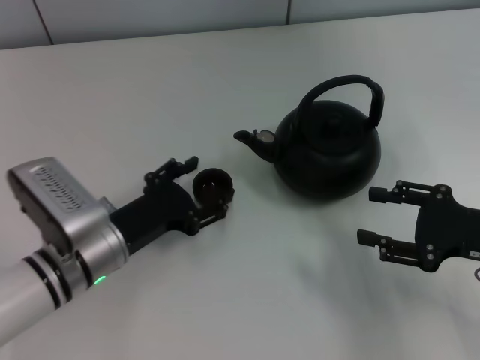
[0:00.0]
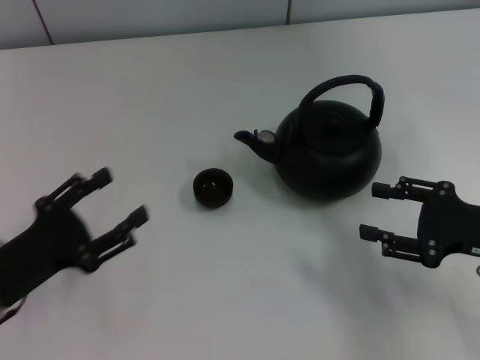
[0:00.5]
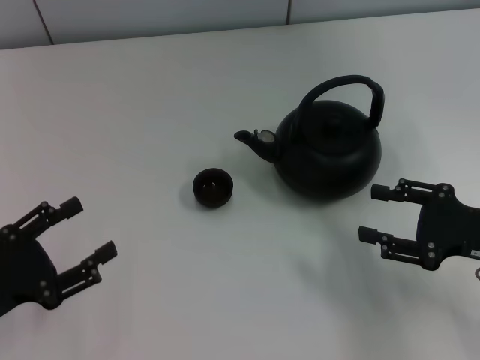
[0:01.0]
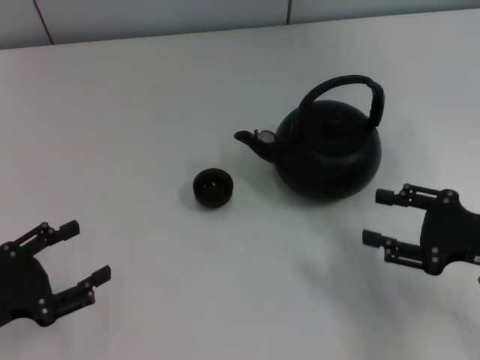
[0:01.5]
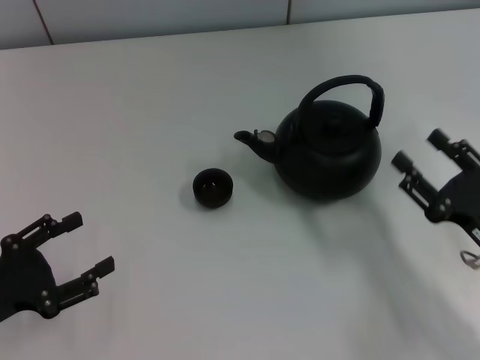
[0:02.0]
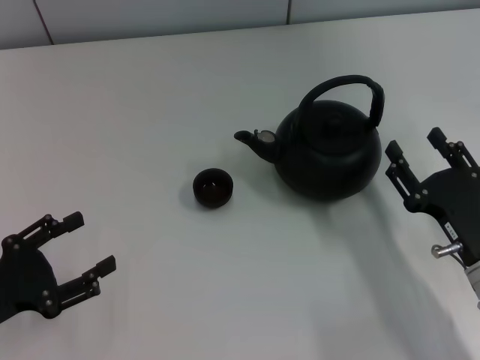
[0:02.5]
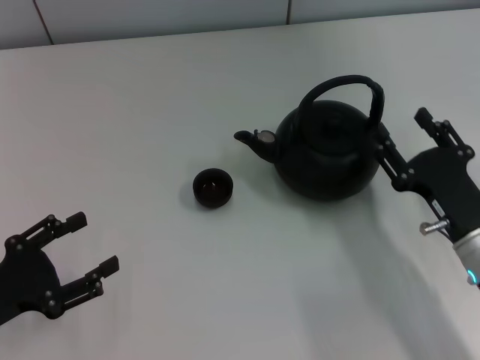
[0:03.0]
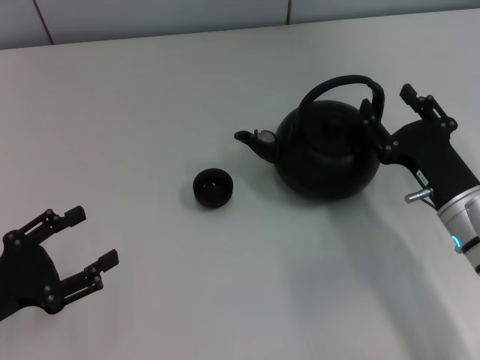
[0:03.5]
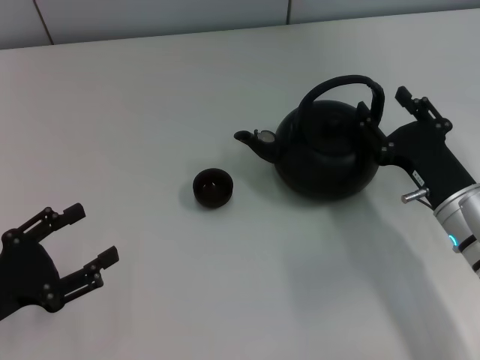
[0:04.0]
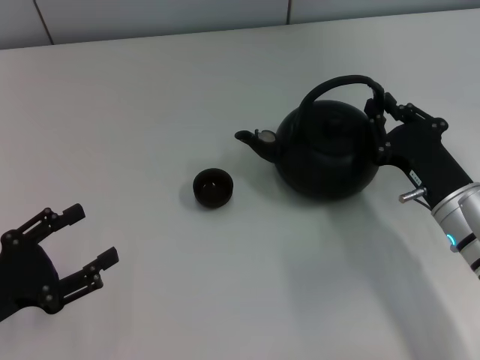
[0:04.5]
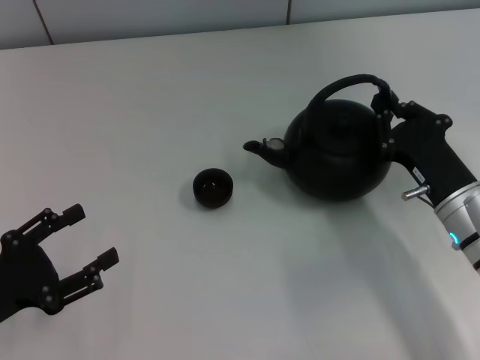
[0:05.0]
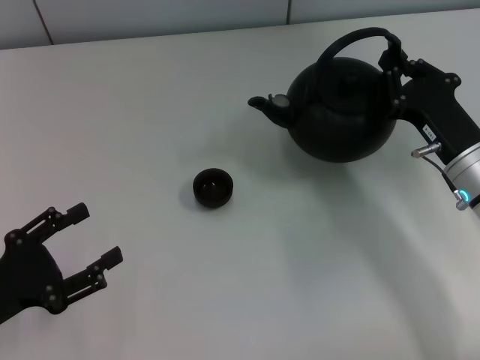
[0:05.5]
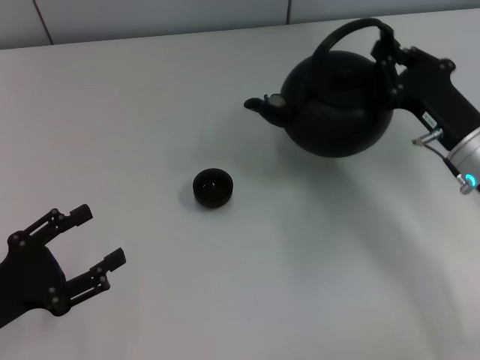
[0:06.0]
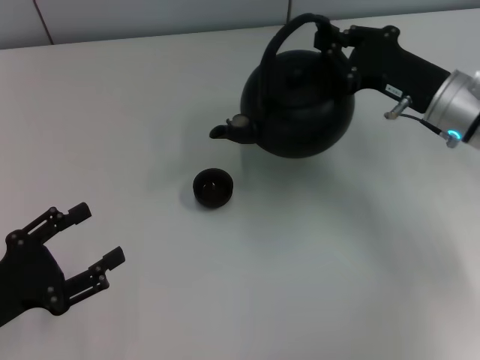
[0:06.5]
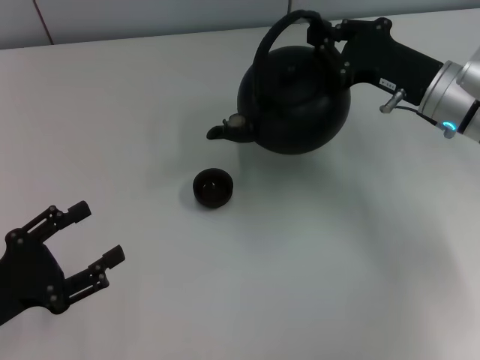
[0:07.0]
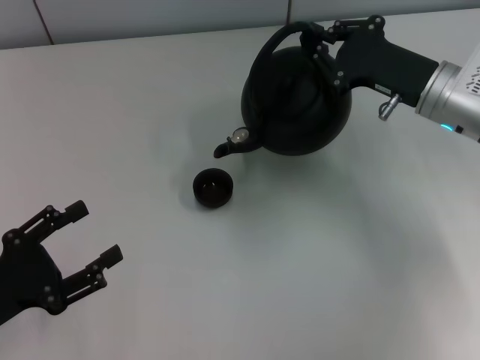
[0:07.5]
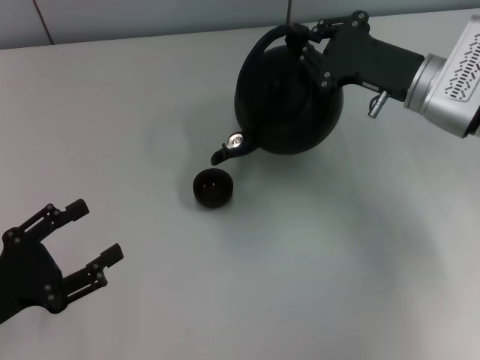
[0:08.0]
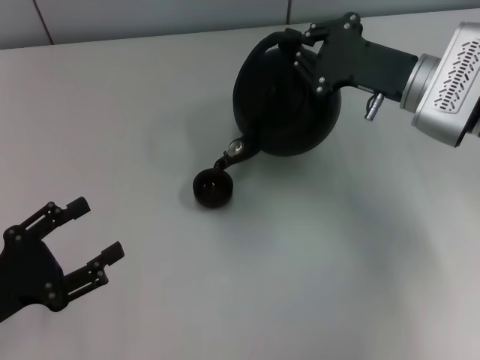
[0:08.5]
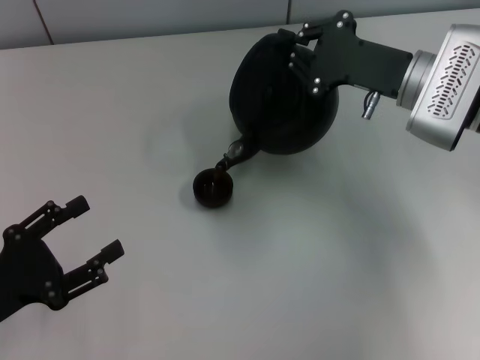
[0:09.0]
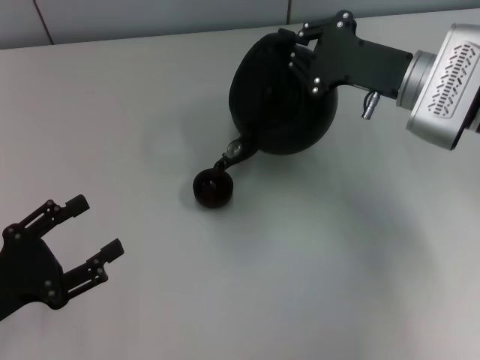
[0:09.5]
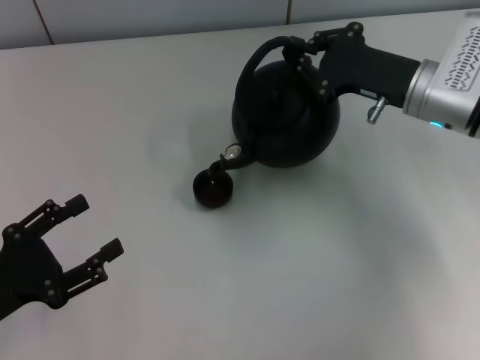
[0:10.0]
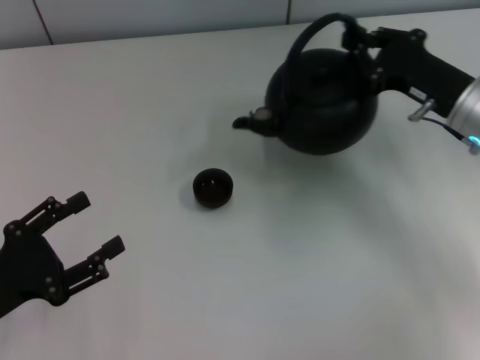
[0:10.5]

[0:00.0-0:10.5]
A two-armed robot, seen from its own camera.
Task of the whole recording: Grasp the handle of the teapot with one hand and pour tea into the teacup.
Step, 0:00.5 to 0:05.5: Pick up the teapot with the right gripper.
0:00.0 to 0:02.0: The right gripper changes place by approximately 5 cm. Meanwhile the left gripper is displaced to the left and backward by about 15 cm.
0:02.0 to 0:04.0: The right gripper goes about 5 cm forward.
0:04.0 to 0:06.5: The right gripper moves forward and upward, about 10 cm, and closes.
0:08.5 to 0:10.5: The right gripper shifts by approximately 5 cm.

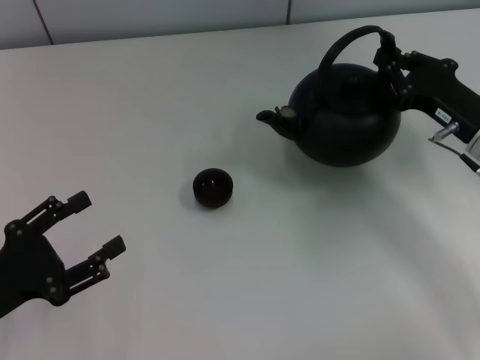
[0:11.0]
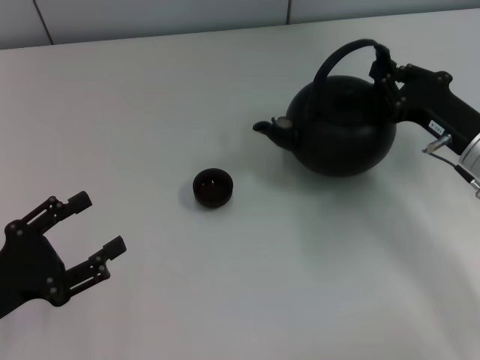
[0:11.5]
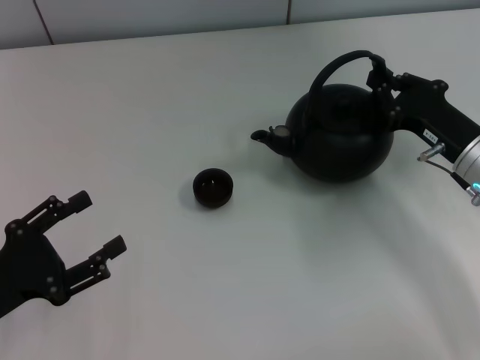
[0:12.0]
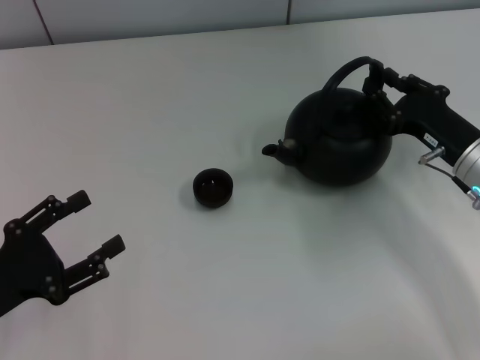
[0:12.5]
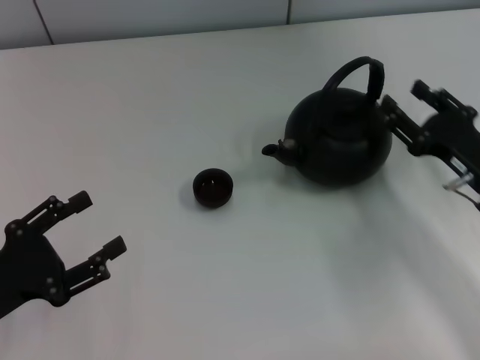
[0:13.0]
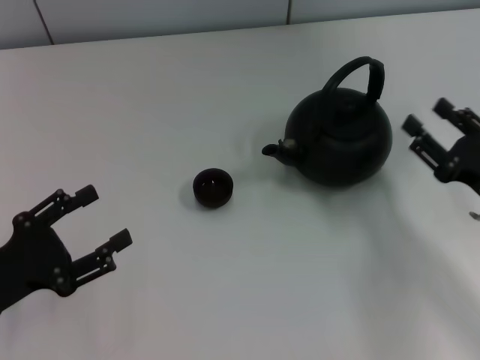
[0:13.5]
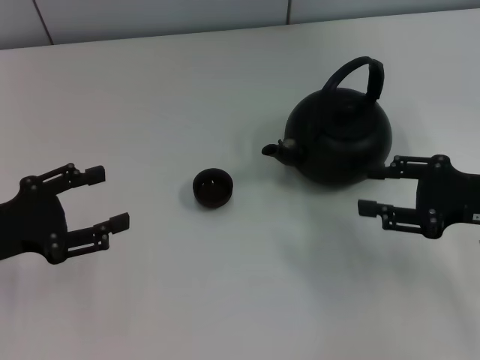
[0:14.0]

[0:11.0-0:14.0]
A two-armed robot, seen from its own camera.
Task of the whole recording: Grasp the handle of the teapot with one hand and pour tea into the teacup.
Step, 0:11.0 to 0:13.0: Put down the teapot with the right gripper.
0:11.0 to 0:12.5: There are only small adjustments of the grippers.
0:12.5 to 0:14.0: The left gripper is displaced forward by about 5 cm; the right gripper is displaced upward by roughly 5 cm, and opens its fingers.
